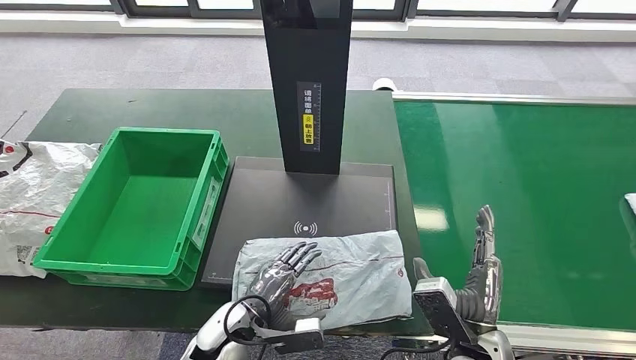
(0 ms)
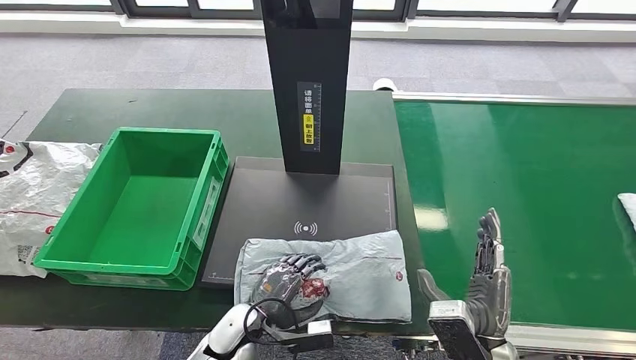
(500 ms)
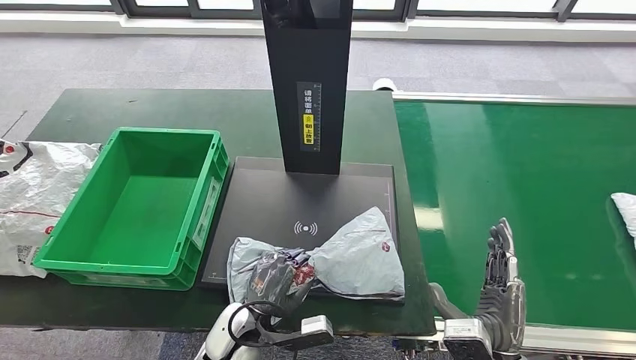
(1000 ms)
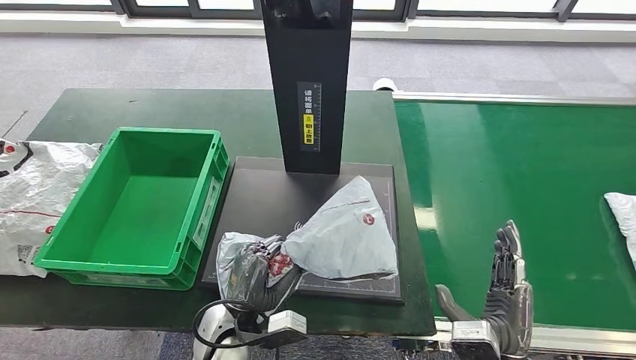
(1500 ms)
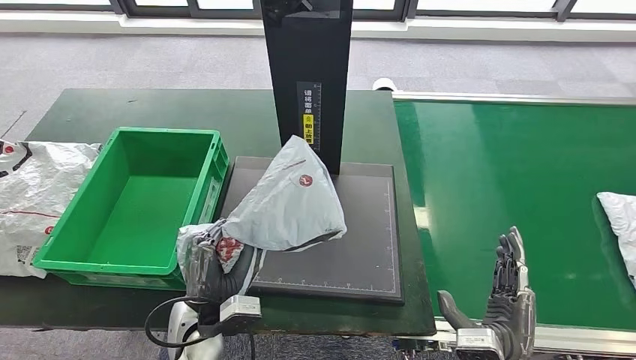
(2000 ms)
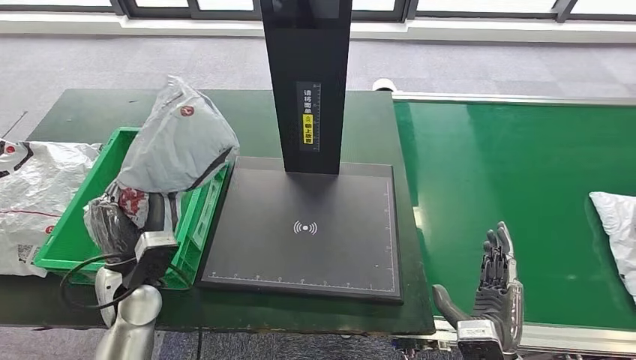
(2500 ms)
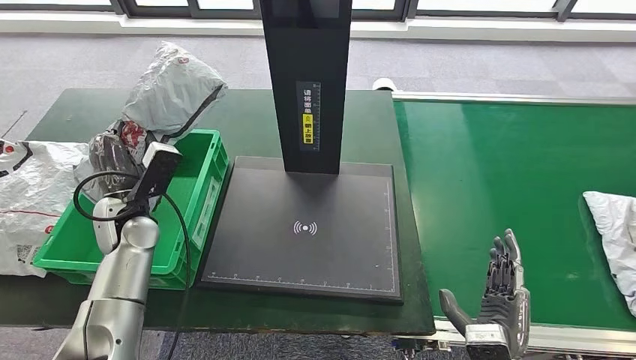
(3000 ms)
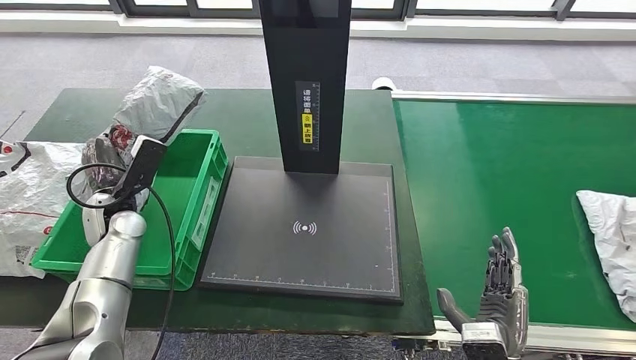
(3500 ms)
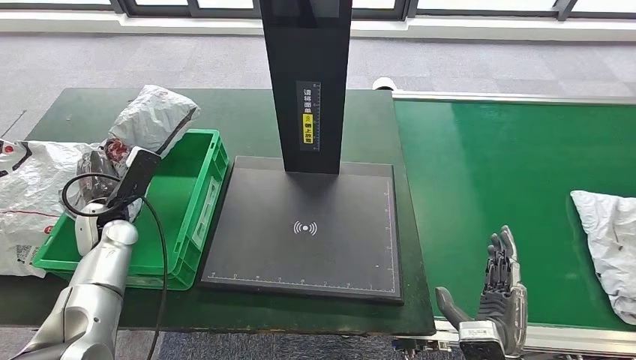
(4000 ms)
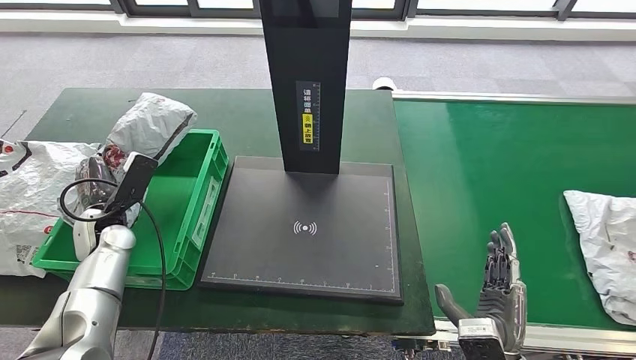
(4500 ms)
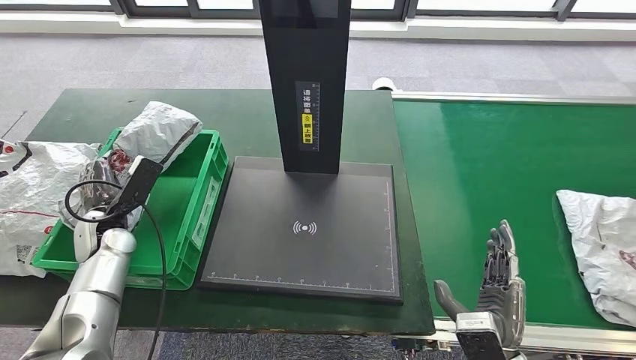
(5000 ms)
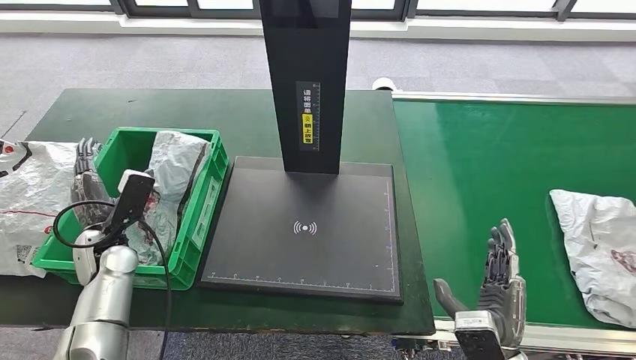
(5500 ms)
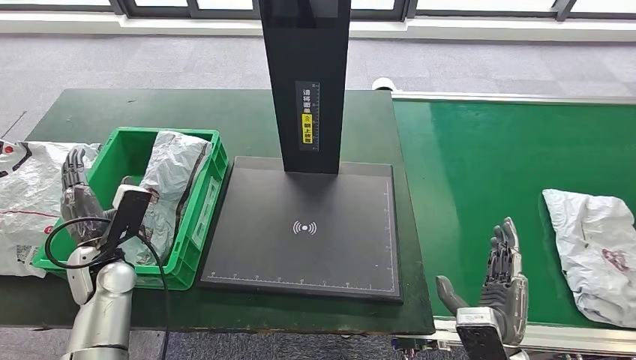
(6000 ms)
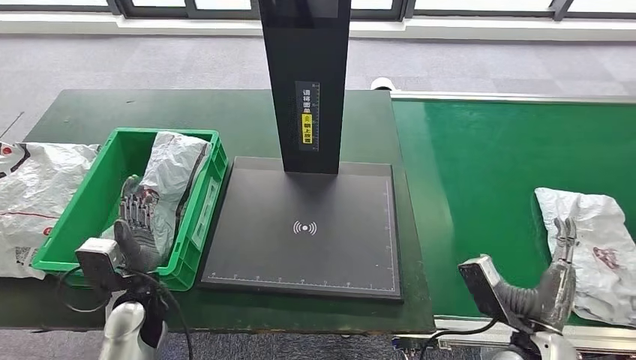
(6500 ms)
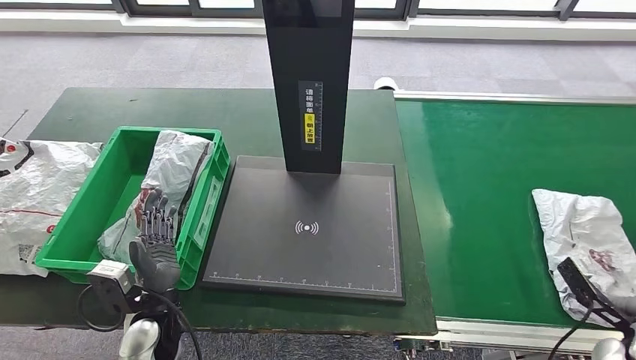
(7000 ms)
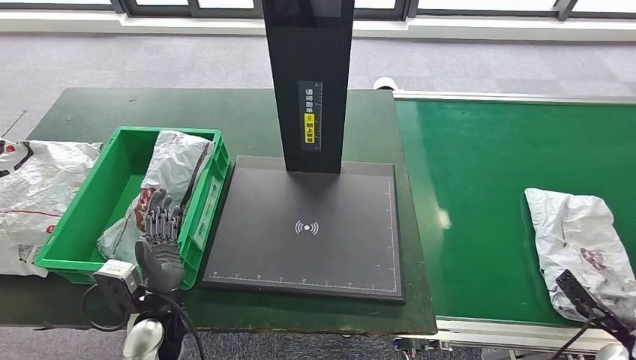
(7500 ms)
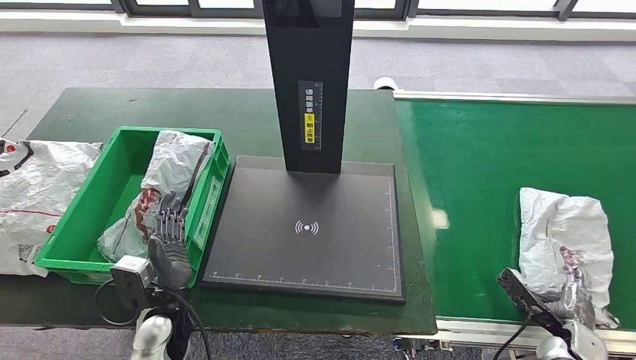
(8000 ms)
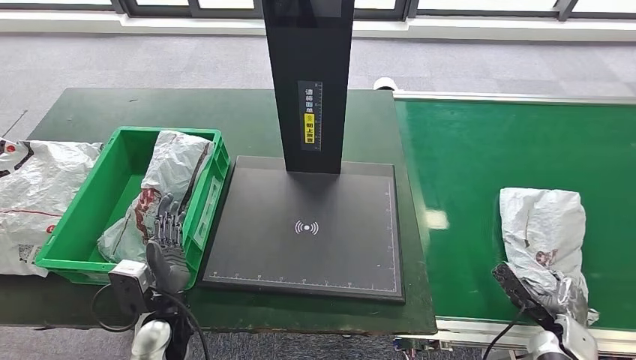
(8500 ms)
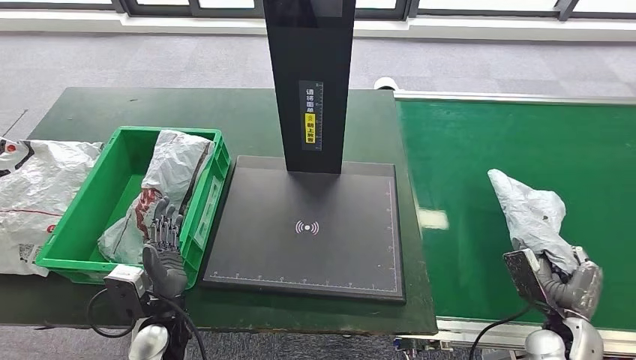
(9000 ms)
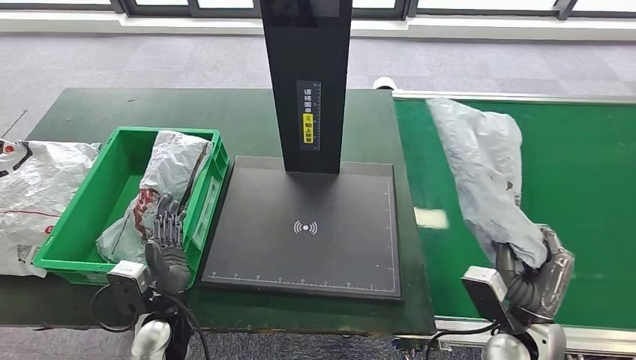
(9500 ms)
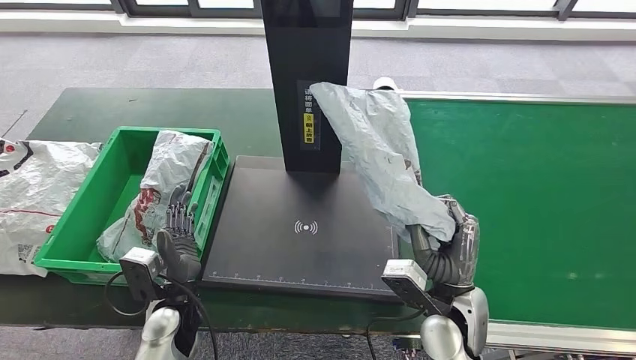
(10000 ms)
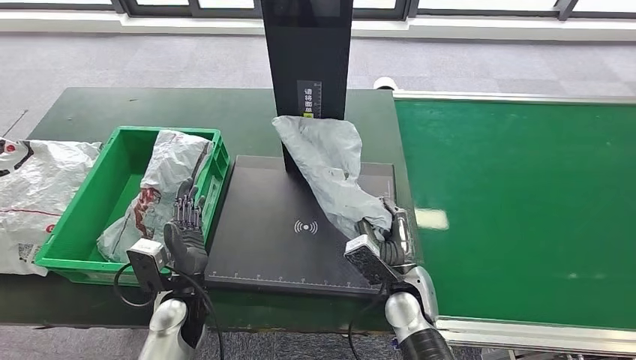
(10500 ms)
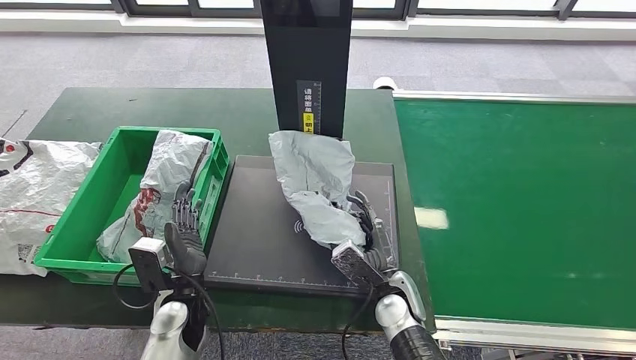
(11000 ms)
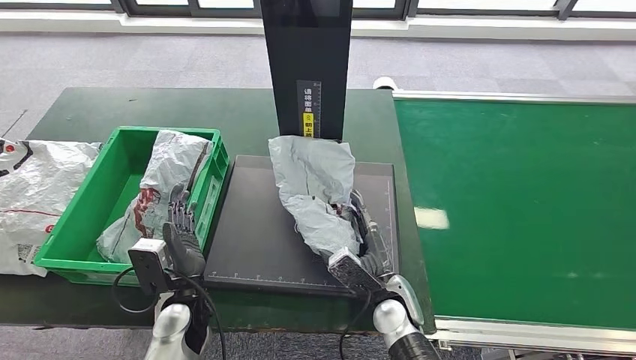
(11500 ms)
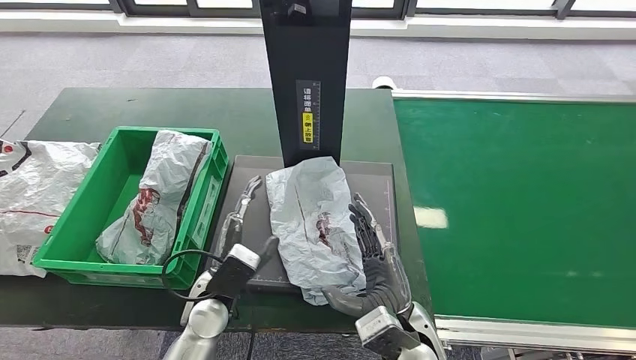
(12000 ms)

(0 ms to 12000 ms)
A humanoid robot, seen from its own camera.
Step, 0 ms - 2000 ms: Pick up the parcel from the inbound machine.
Step, 3500 ms - 5500 ms: Put the parcel inside the courier box.
Step, 6000 ms - 9500 ms: Pick up the parcel from the conveyor belt.
0 ms - 2000 ms: The left hand shifts by roughly 5 cm. Meanwhile the right hand ends up about 5 cm from where it was.
4000 ms - 6000 ms: The left hand travels backward by approximately 10 cm.
8000 ms - 10000 ms: The right hand shifts roughly 30 cm to the left and upward.

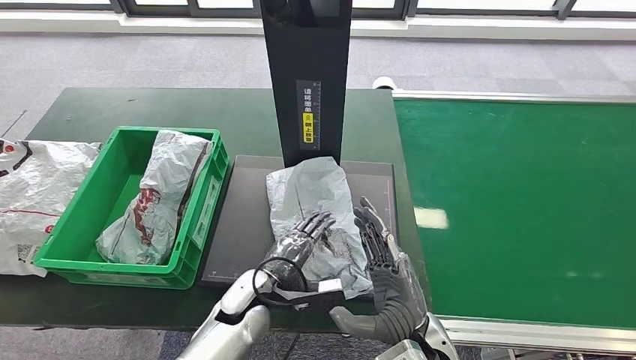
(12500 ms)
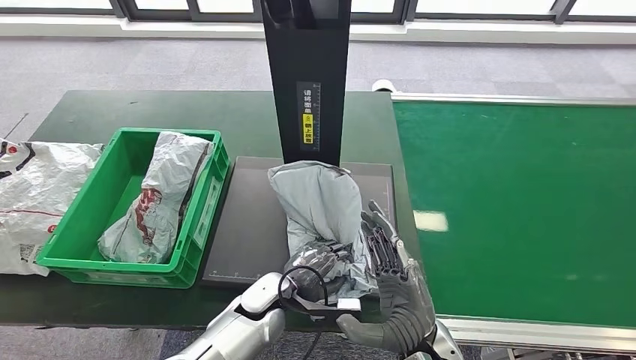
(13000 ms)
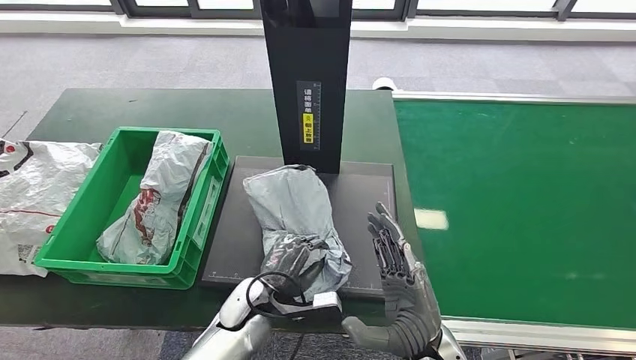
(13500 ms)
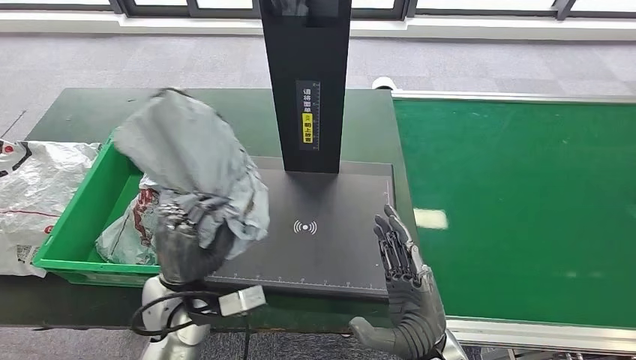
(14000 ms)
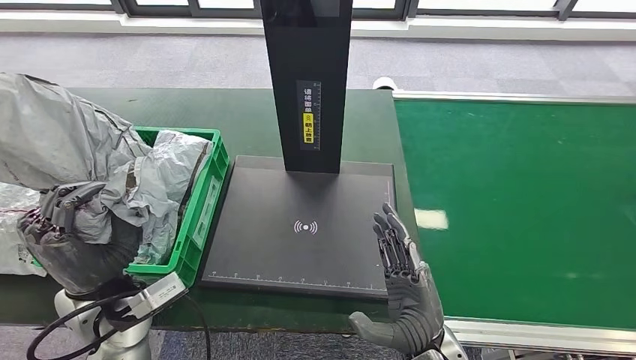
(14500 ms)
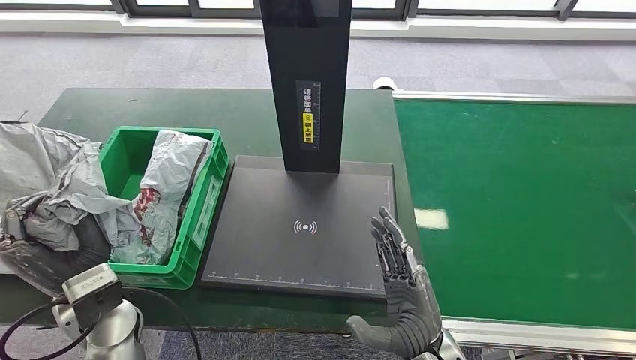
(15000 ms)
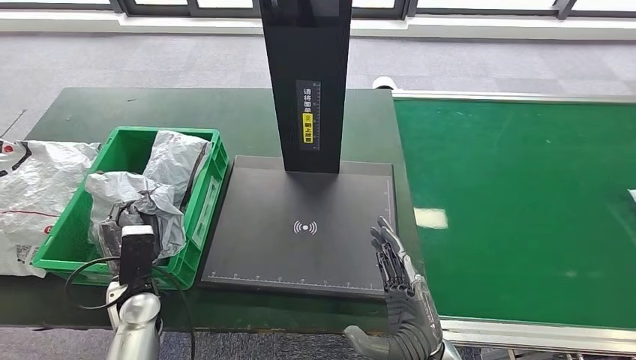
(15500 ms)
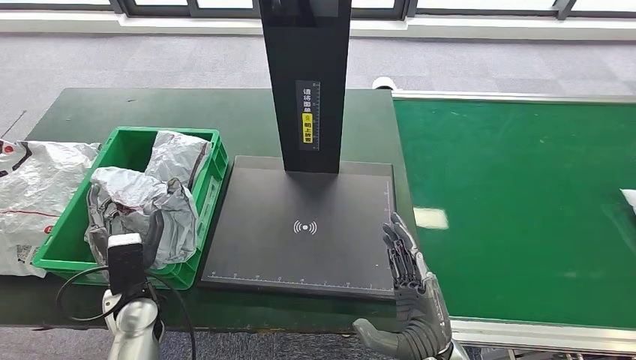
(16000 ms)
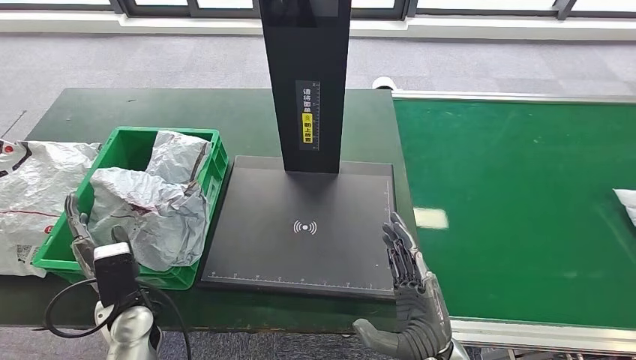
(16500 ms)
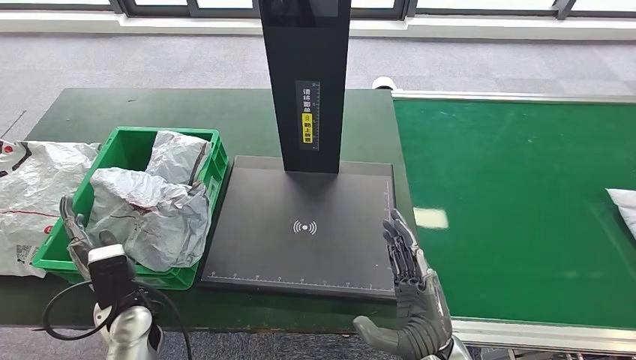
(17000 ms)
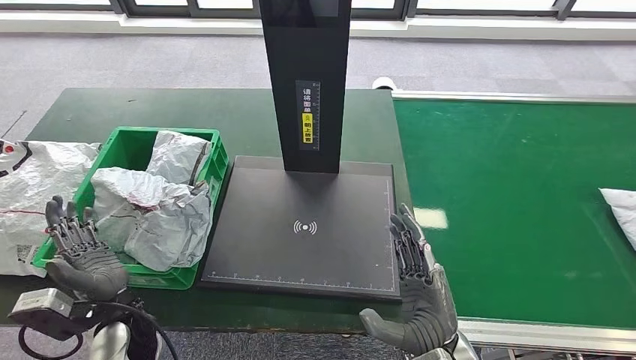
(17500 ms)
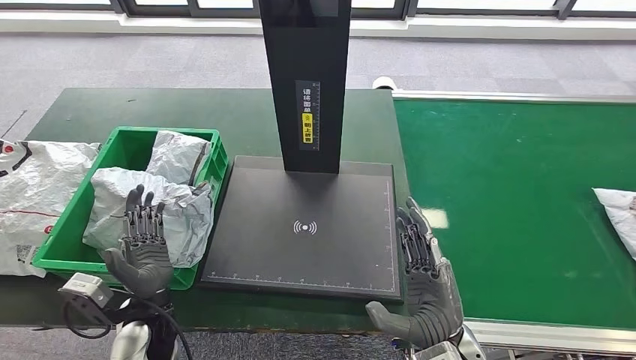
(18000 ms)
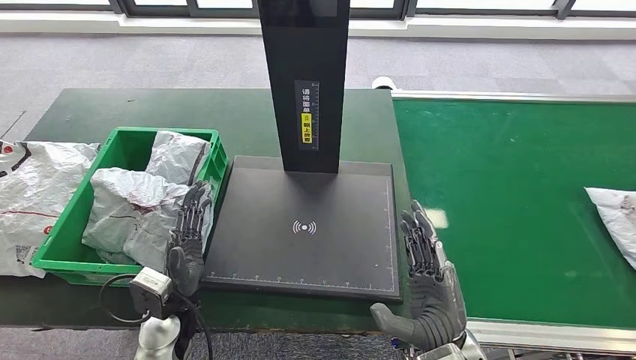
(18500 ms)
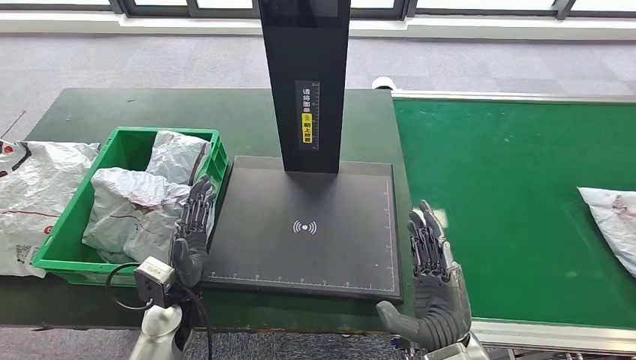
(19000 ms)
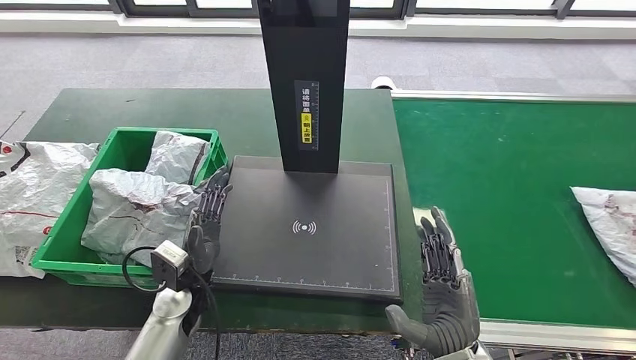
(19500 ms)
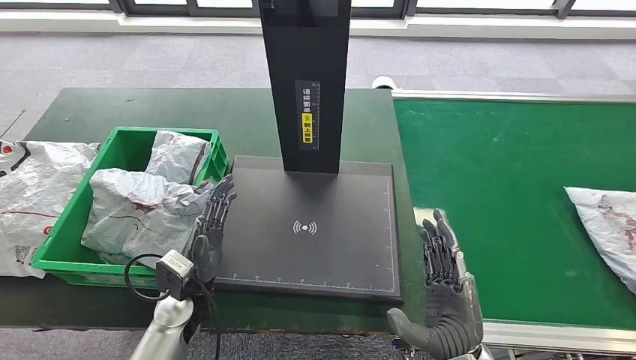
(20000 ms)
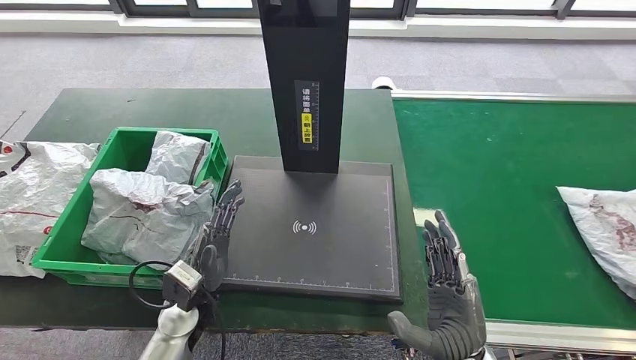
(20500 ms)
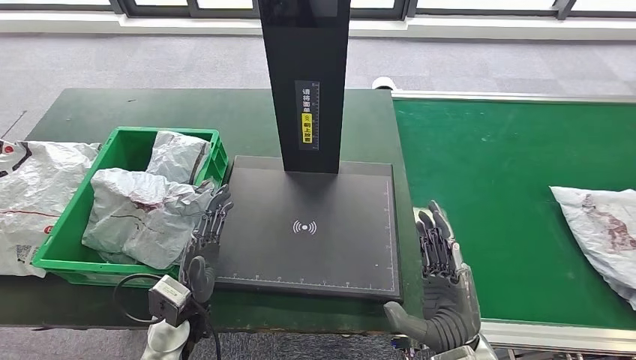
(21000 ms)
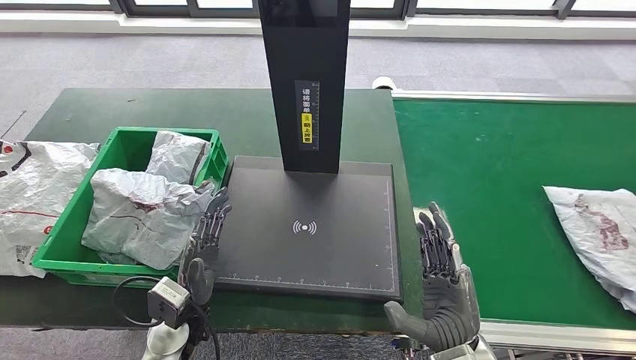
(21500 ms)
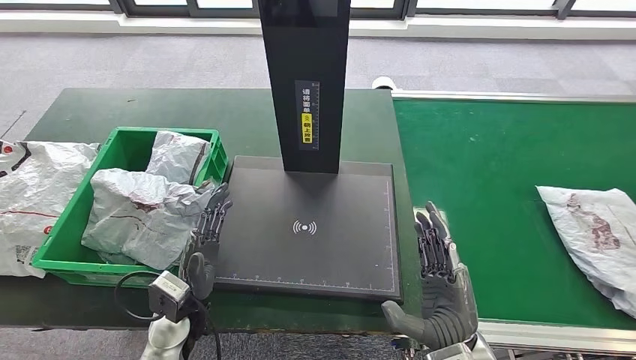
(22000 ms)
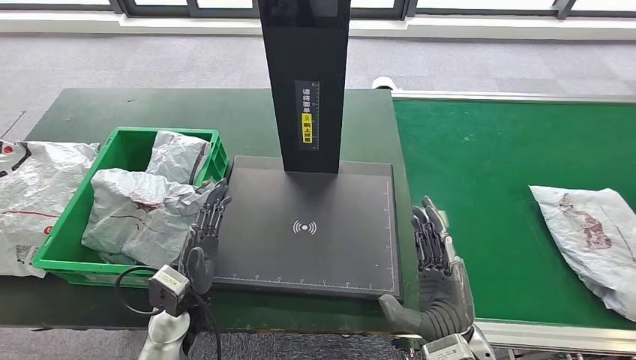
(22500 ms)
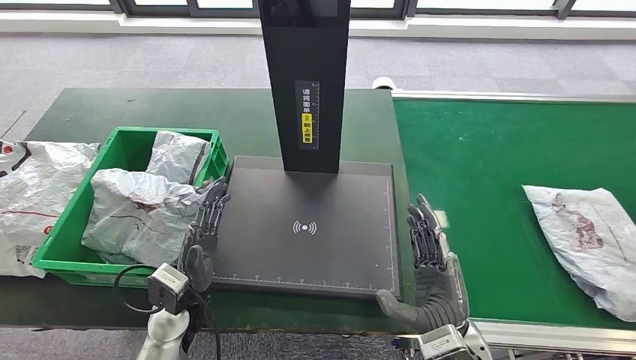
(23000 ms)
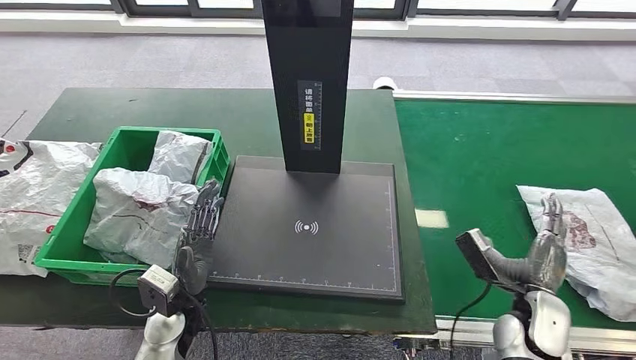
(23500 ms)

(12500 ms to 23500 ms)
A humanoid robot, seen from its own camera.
Step, 13500 ms - 14500 ms: Pick up the parcel from the inbound machine.
Step, 15000 ms - 18500 ms: Place the parcel into the delivery box.
14500 ms - 16000 ms: The left hand goes roughly 15 cm downward.
18000 ms - 20000 ms: The left hand changes place by roughly 5 cm.
20000 ms - 21500 ms: The hands move only a little.
21500 ms - 23500 ms: The right hand shifts approximately 15 cm to the right and forward.
